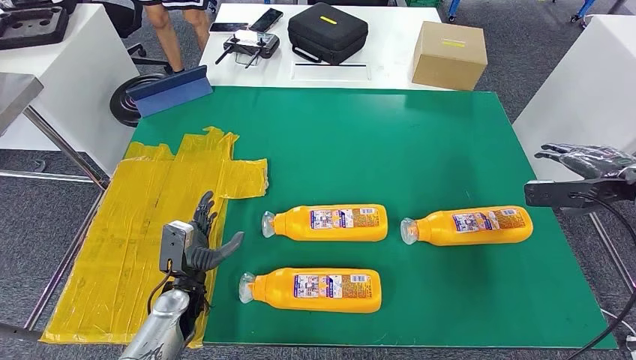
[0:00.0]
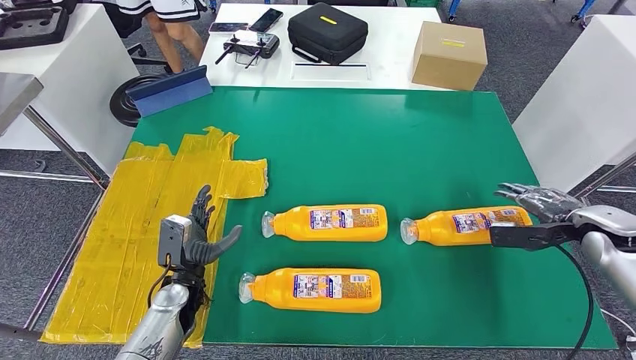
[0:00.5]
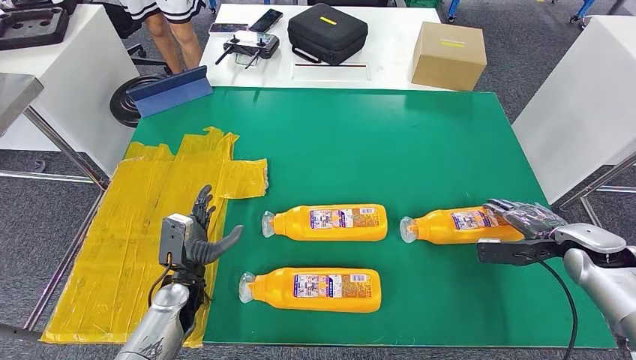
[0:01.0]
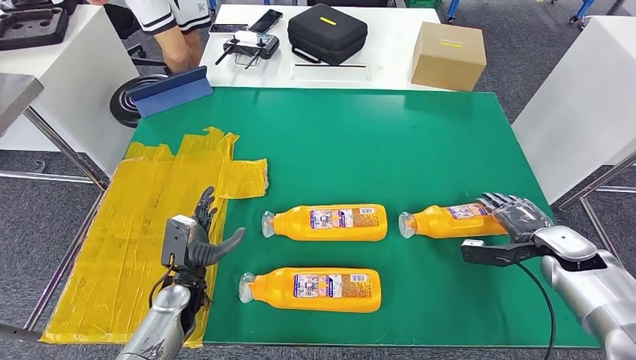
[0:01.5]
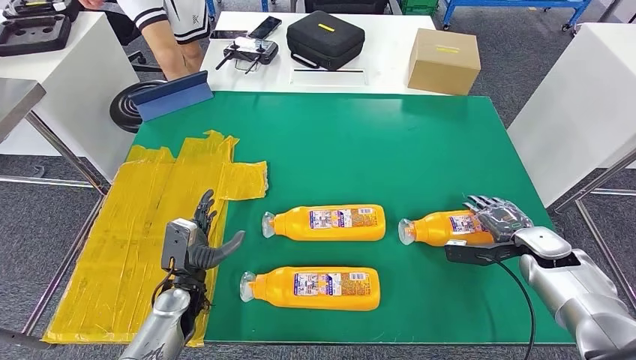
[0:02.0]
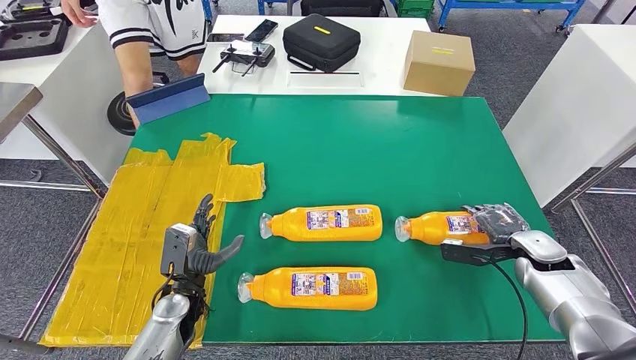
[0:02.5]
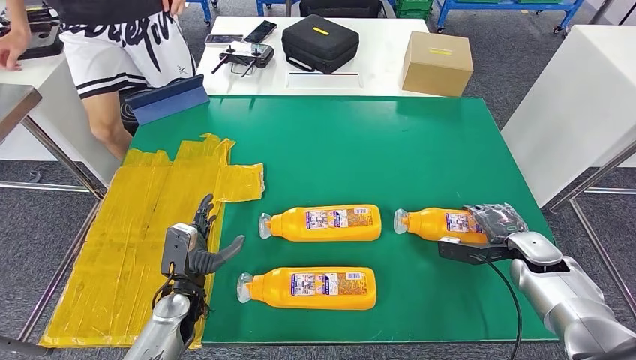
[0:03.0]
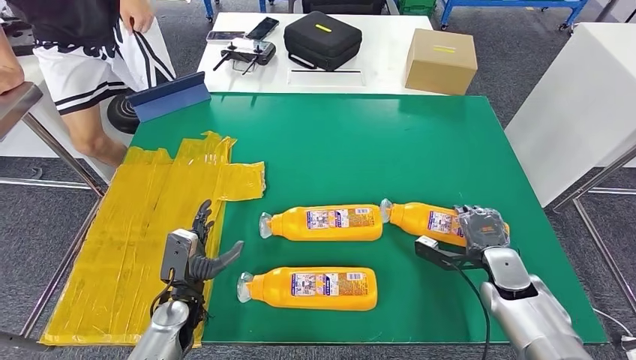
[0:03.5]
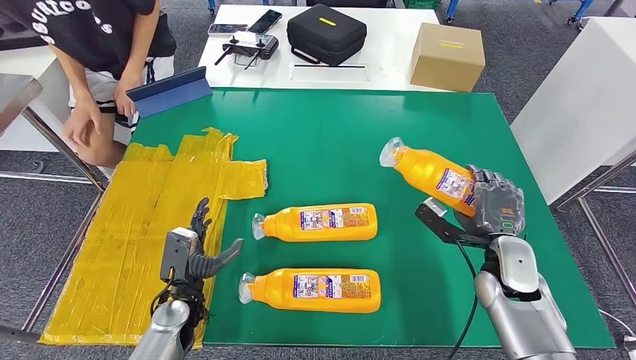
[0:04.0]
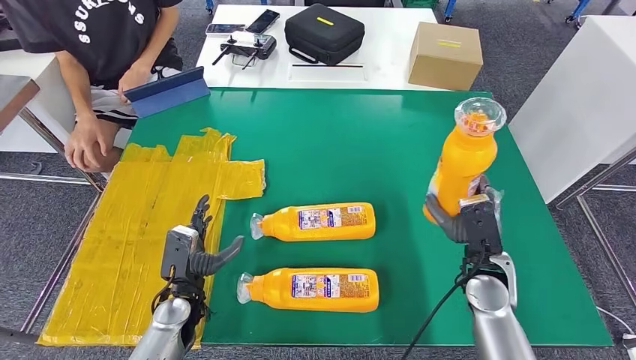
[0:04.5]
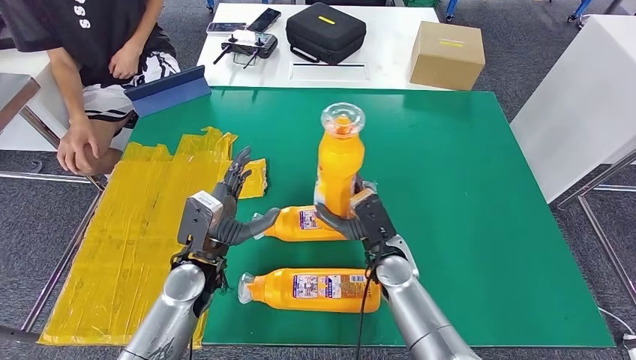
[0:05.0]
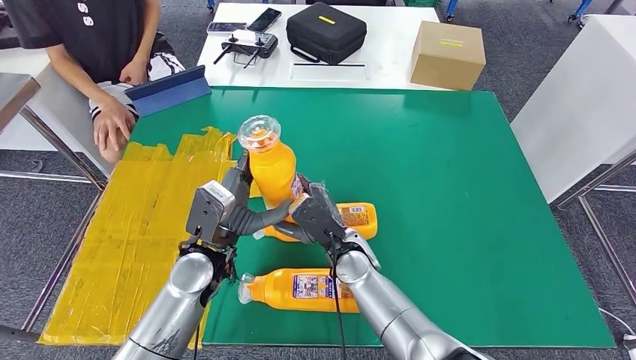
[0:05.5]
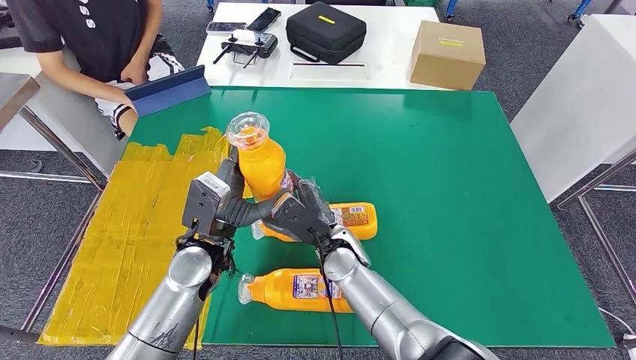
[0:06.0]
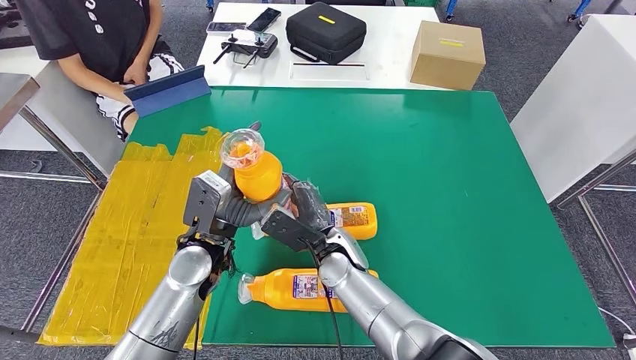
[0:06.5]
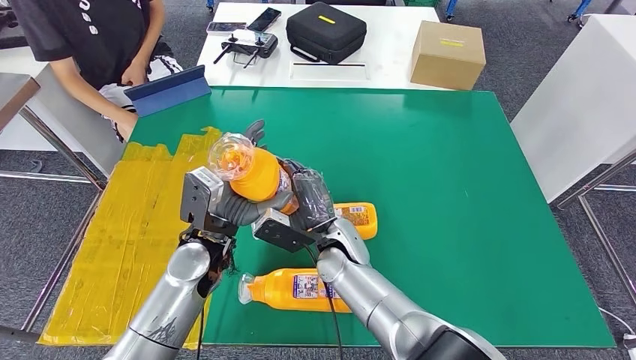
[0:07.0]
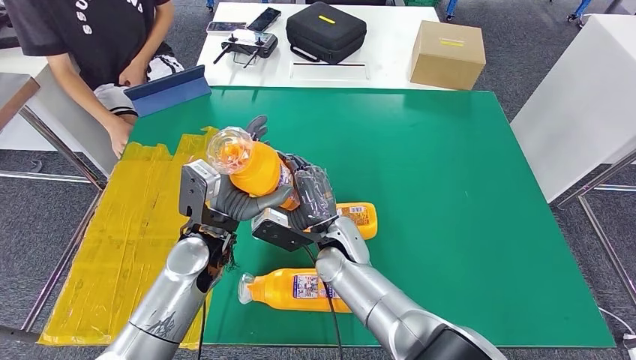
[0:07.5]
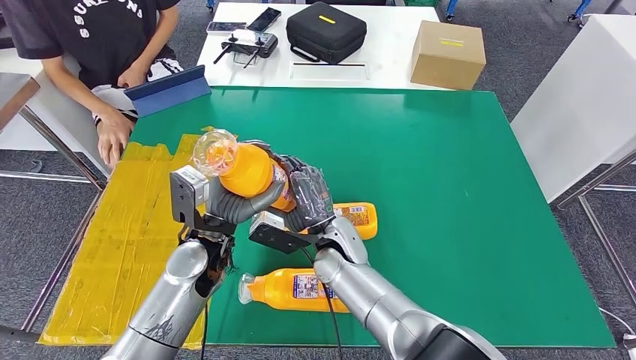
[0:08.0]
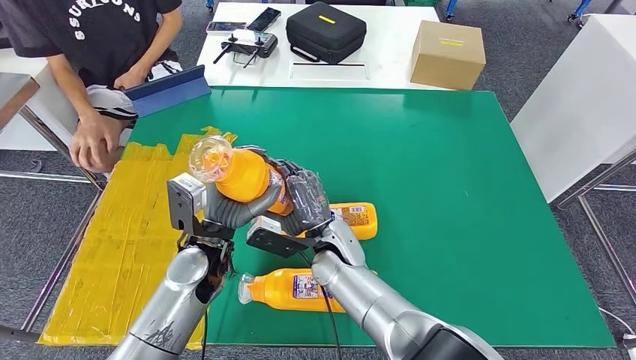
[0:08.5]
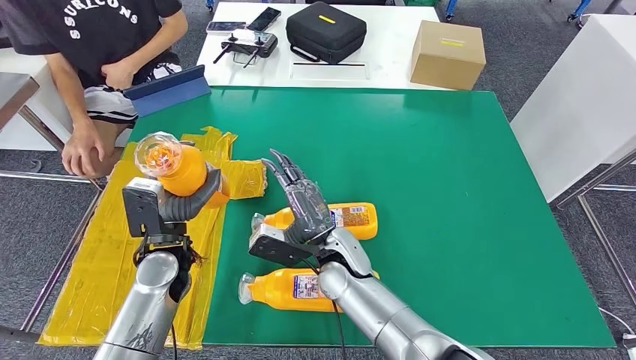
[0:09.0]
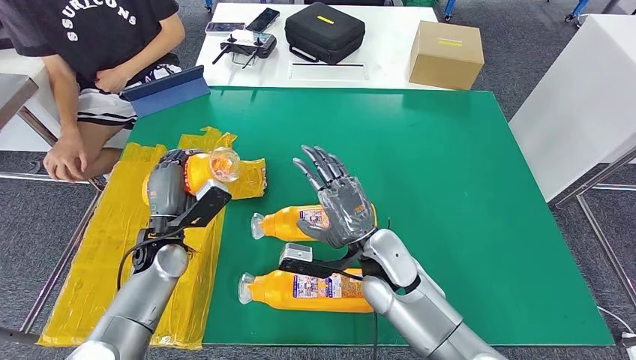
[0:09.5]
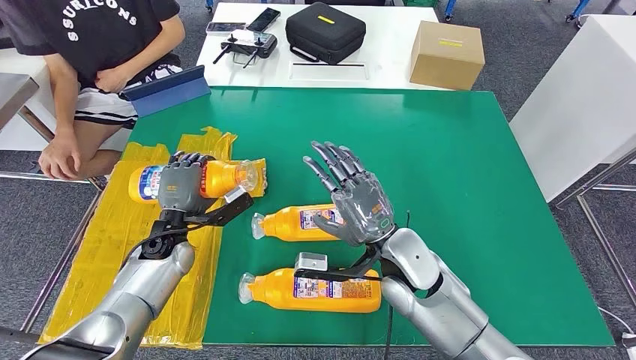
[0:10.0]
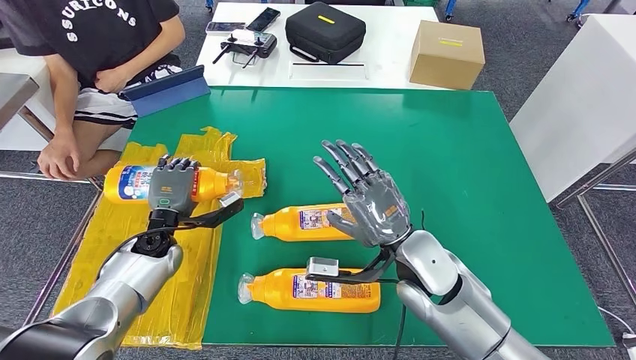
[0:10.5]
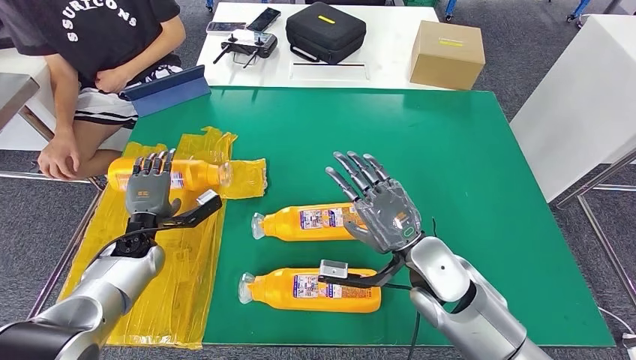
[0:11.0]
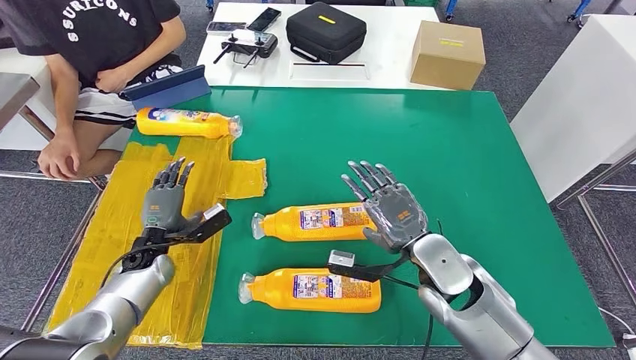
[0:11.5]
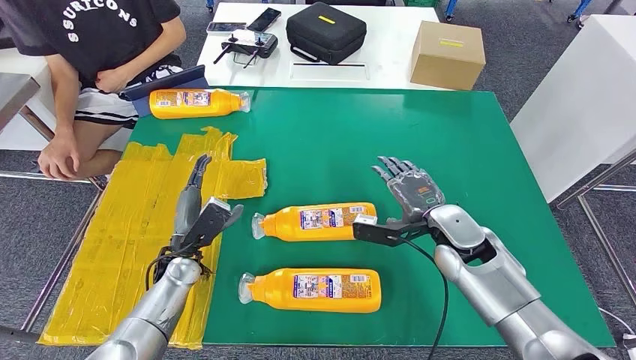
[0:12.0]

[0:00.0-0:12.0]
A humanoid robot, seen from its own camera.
Step, 0:00.0 to 0:05.0: Pick up the fast-moving consumer goods bottle from the table.
Step, 0:05.5 to 0:11.0: Flip the fast-moving consumer goods bottle to the front side.

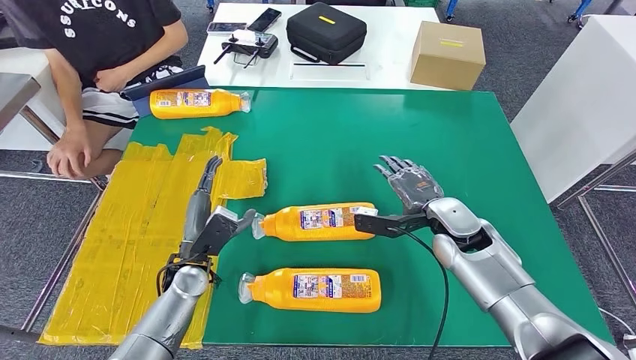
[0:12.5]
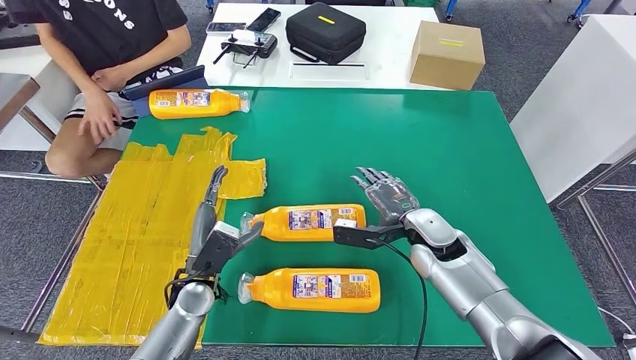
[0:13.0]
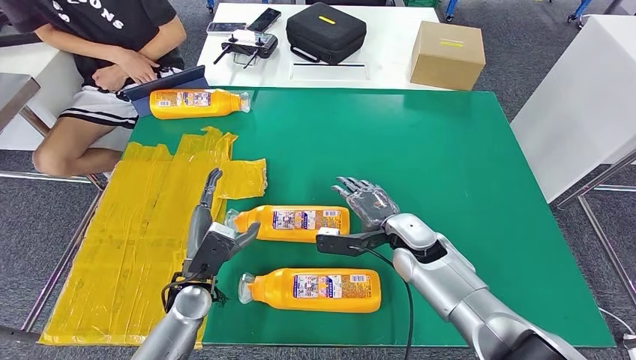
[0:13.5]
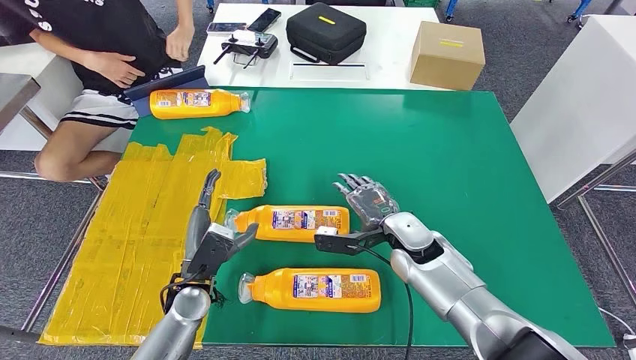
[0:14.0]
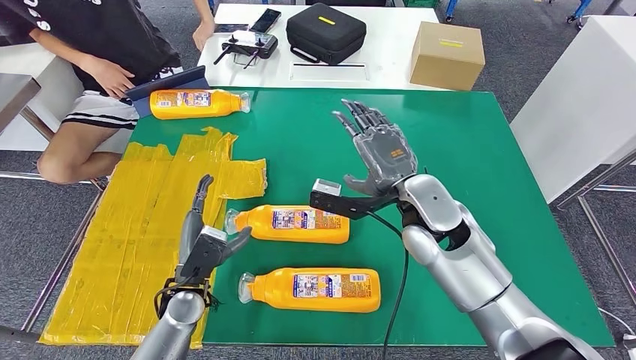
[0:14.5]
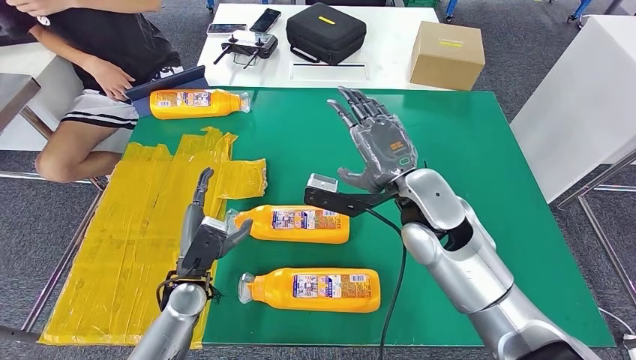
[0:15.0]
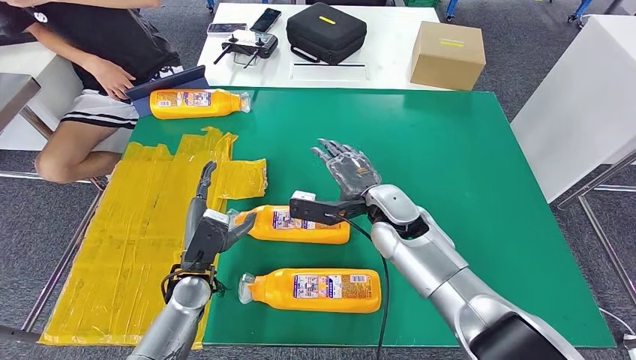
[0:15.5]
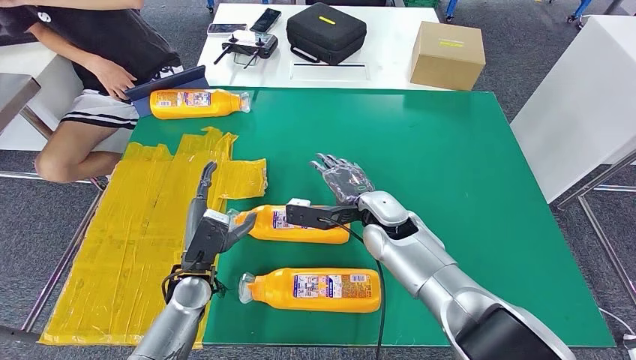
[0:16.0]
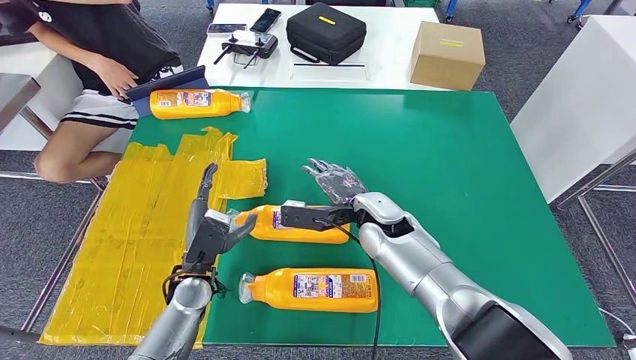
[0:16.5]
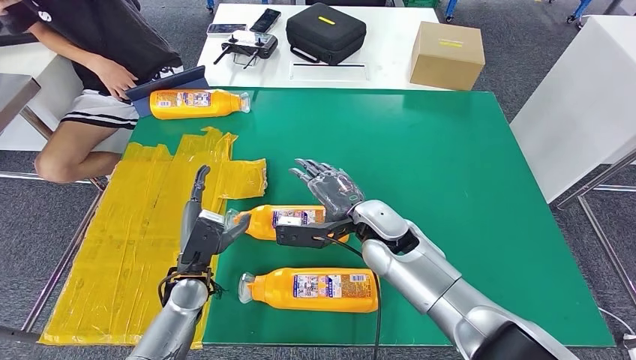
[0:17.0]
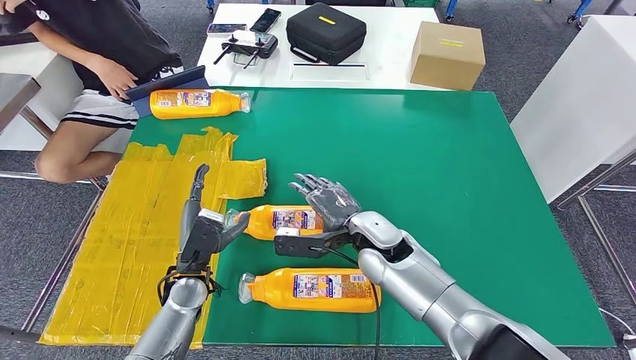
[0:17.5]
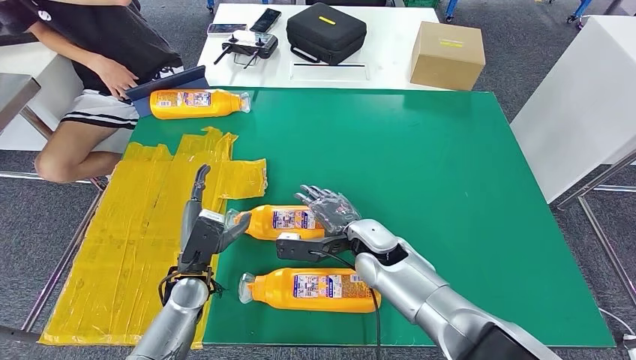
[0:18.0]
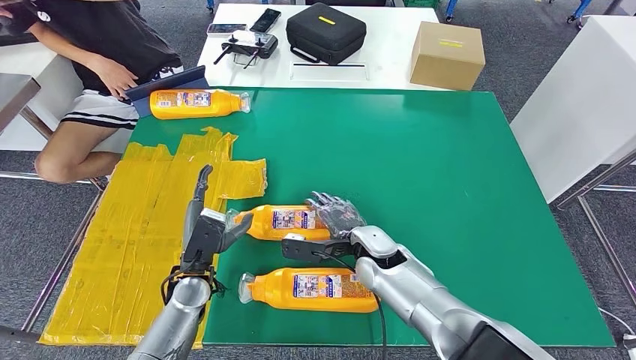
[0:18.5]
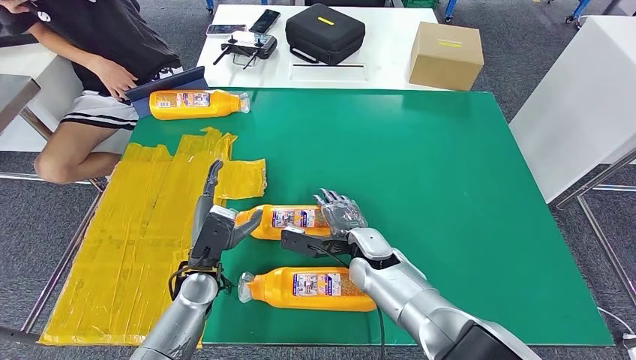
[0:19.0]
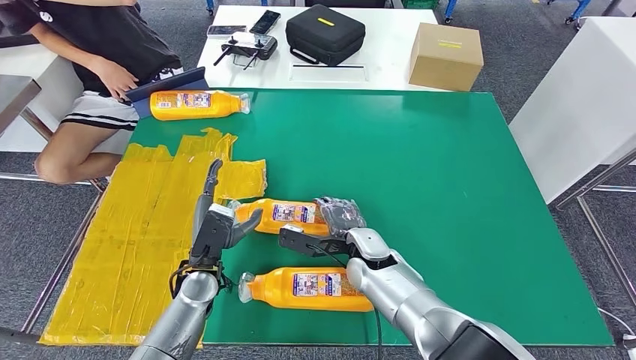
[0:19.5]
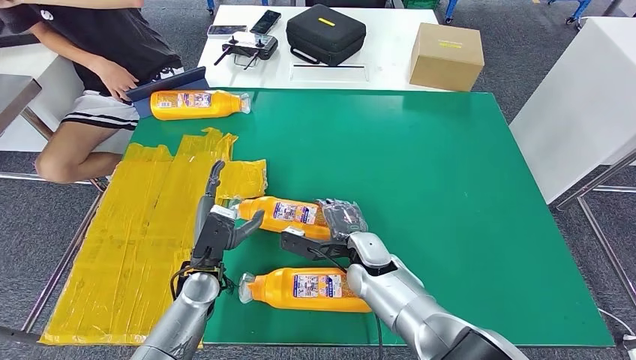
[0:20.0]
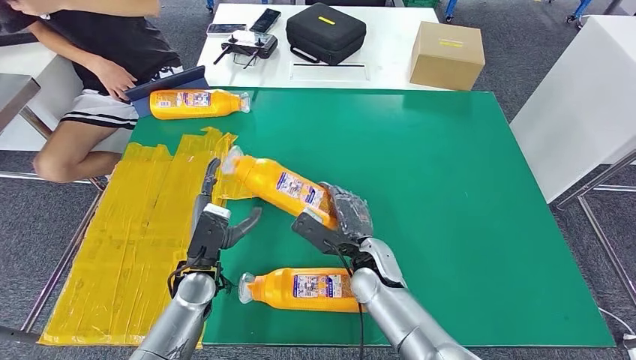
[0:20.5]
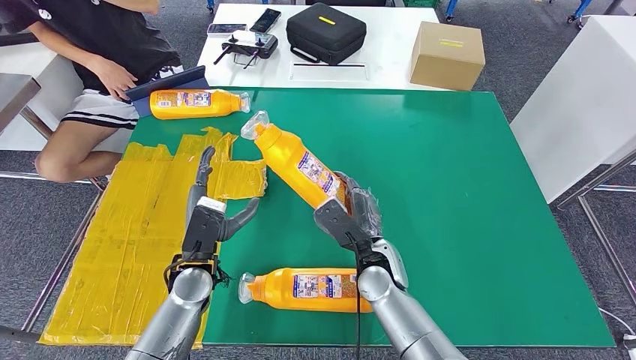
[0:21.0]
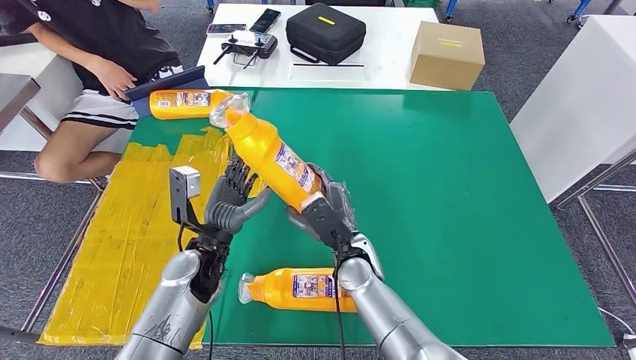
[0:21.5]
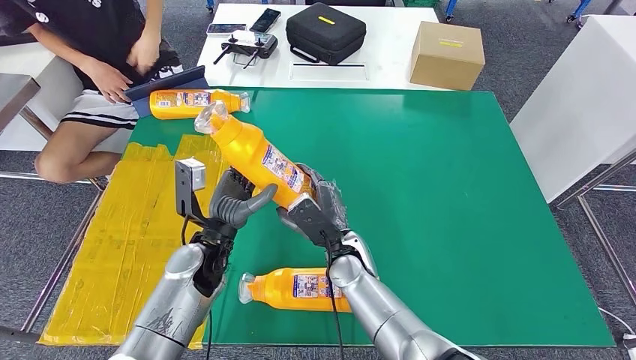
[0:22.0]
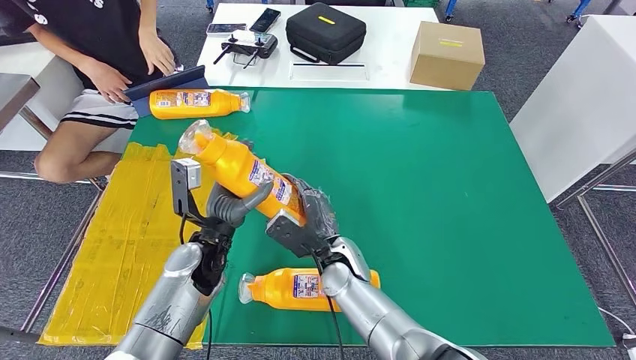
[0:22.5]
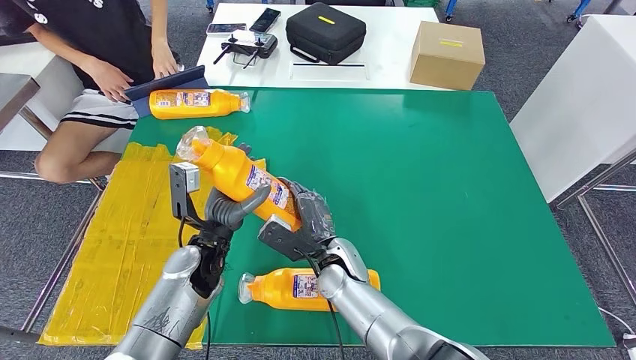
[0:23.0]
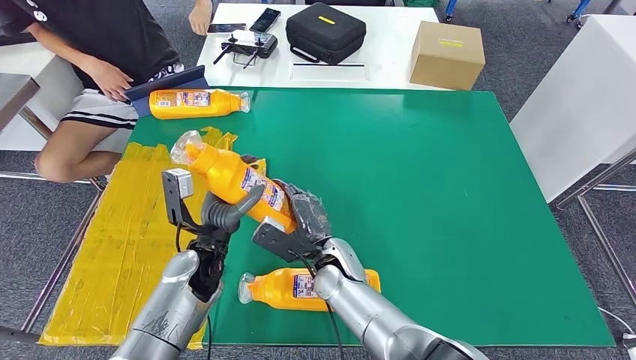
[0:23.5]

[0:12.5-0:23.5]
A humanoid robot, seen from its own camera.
Step, 0:12.5 to 0:20.5: Pick up the fast-moving consumer goods bottle from the table.
0:12.5 to 0:14.5: The right hand is displaced upward and to the left by some 10 cm.
0:14.5 to 0:16.0: The right hand shifts about 10 cm downward and to the left.
0:16.0 to 0:18.0: The right hand ends up roughly 5 cm from where it was.
0:18.0 to 0:20.0: There are only small adjustments of the hands.
0:20.0 to 0:21.5: The left hand travels upward by approximately 5 cm.
